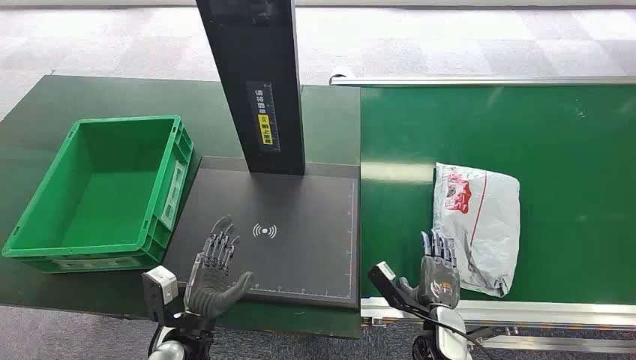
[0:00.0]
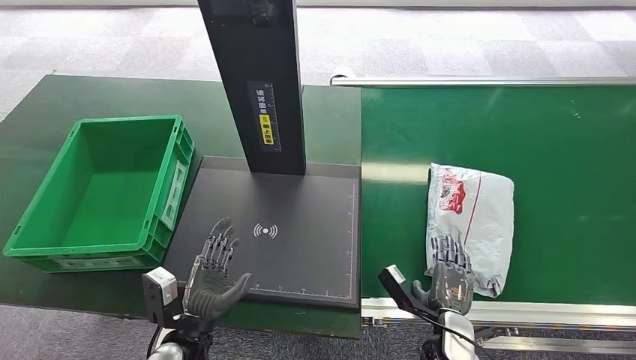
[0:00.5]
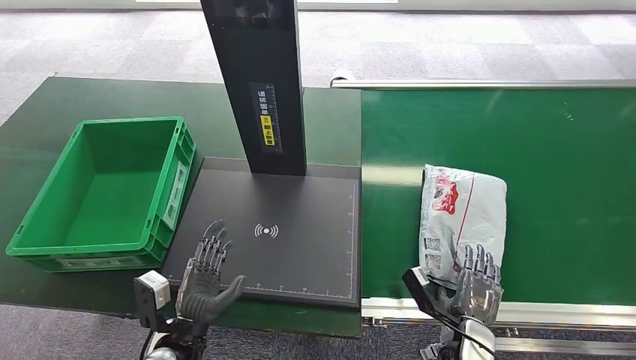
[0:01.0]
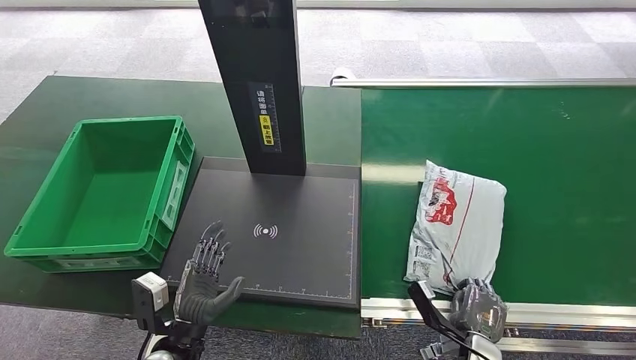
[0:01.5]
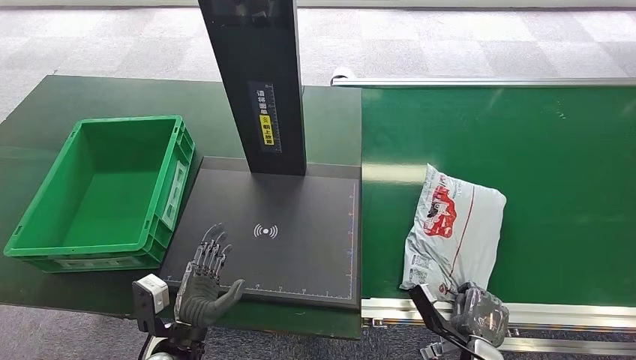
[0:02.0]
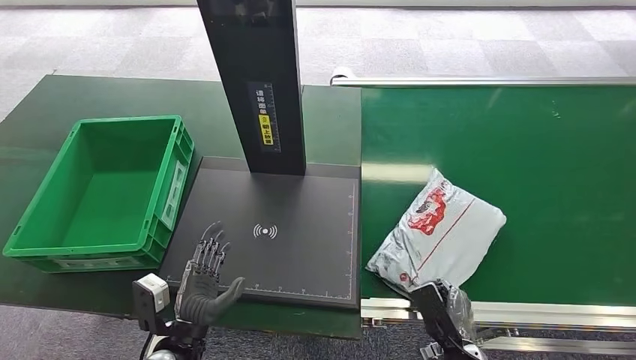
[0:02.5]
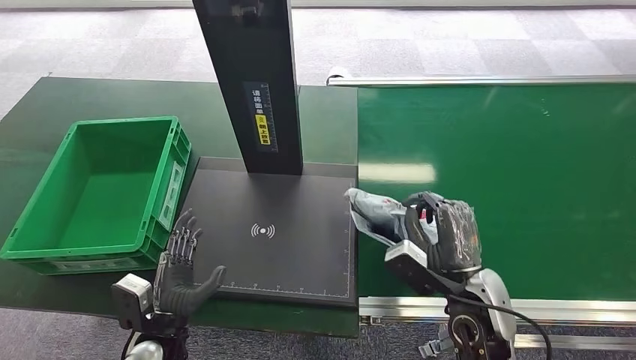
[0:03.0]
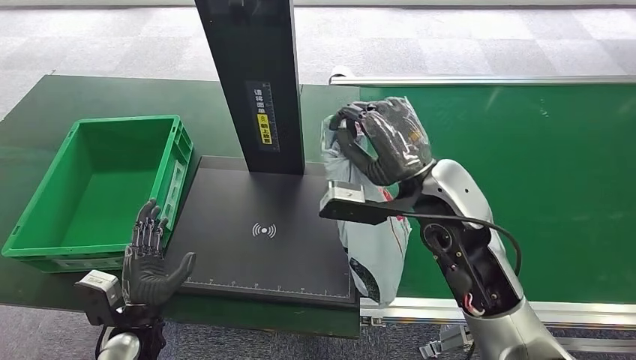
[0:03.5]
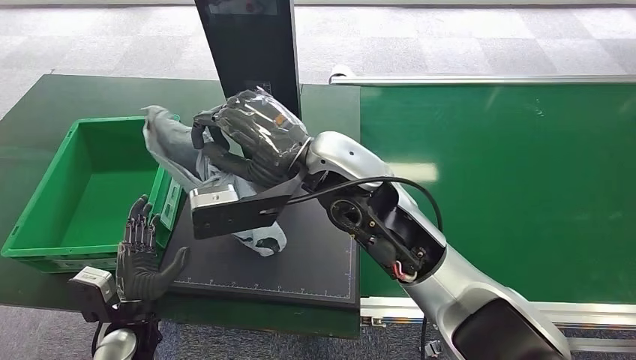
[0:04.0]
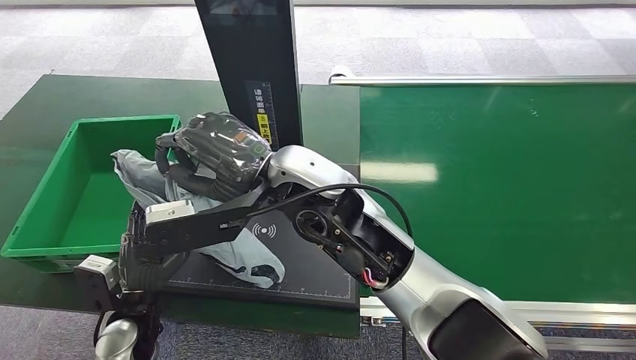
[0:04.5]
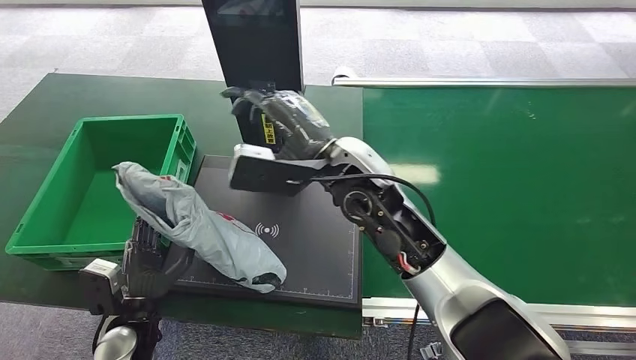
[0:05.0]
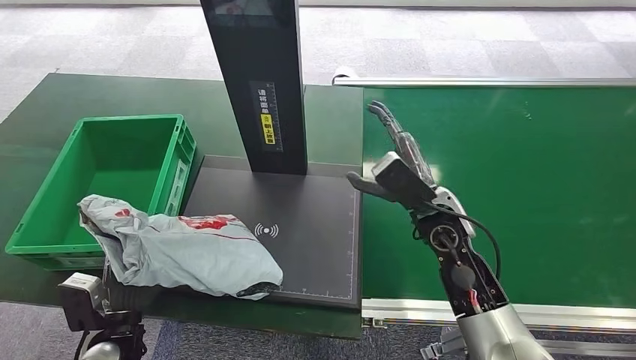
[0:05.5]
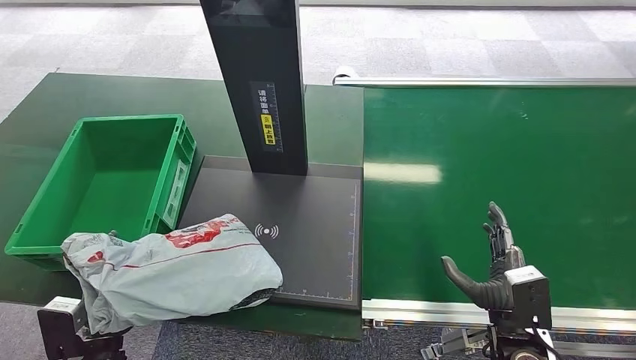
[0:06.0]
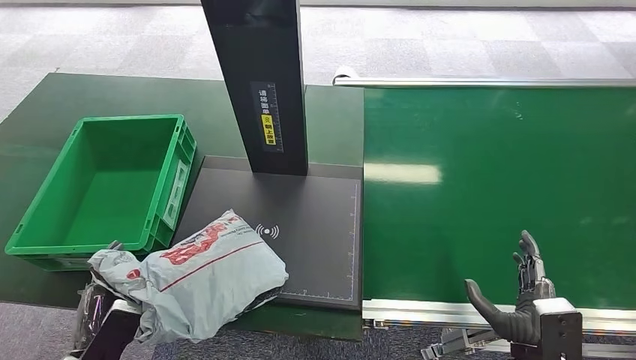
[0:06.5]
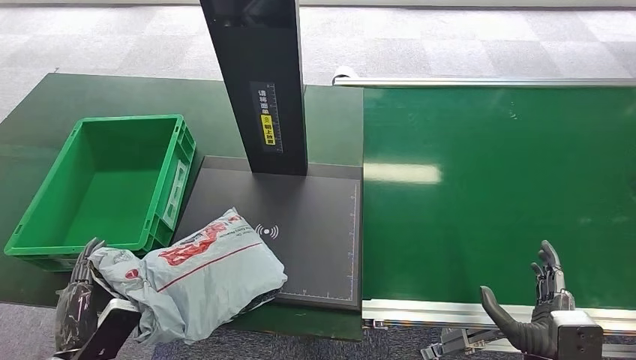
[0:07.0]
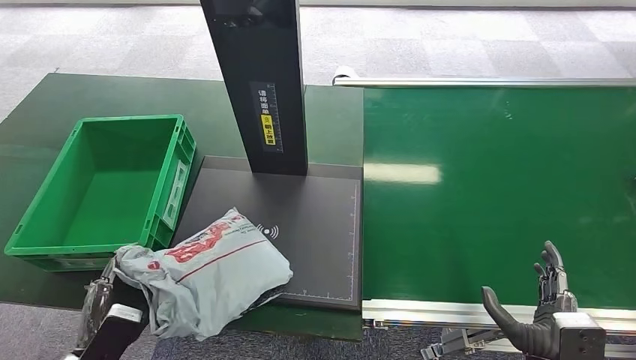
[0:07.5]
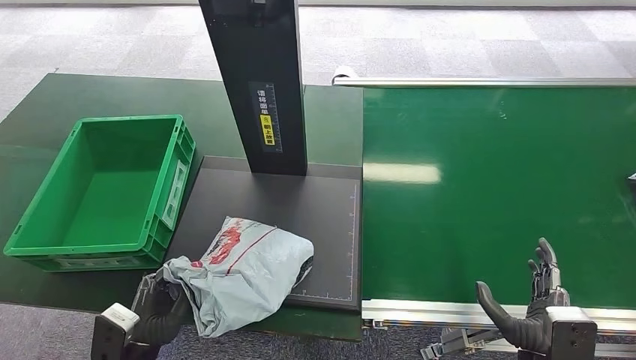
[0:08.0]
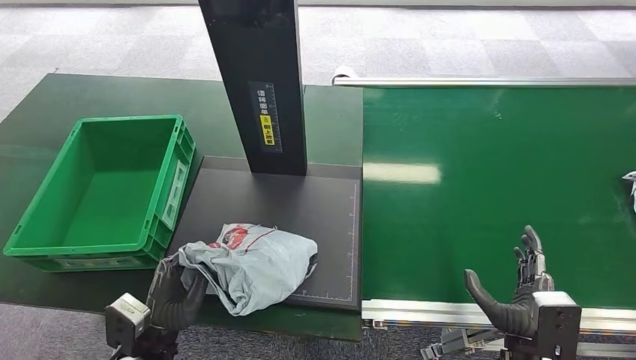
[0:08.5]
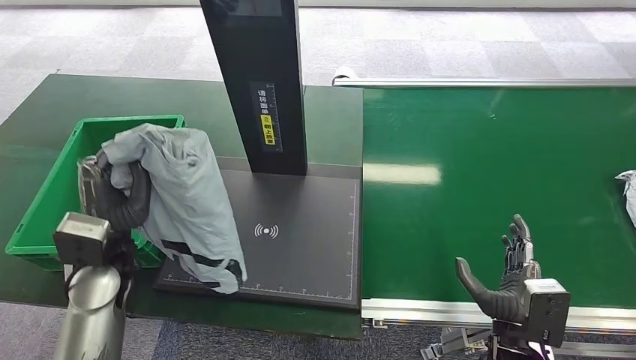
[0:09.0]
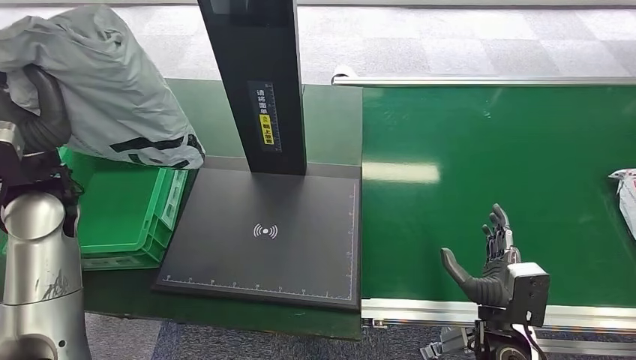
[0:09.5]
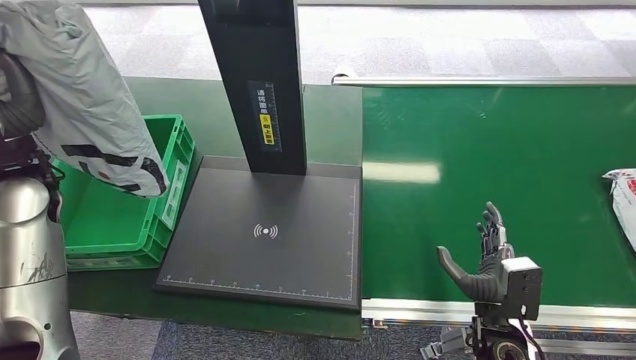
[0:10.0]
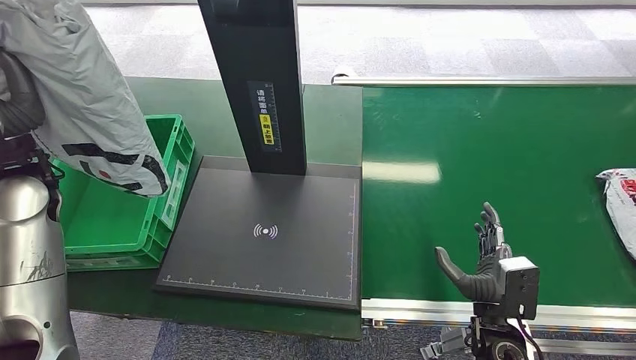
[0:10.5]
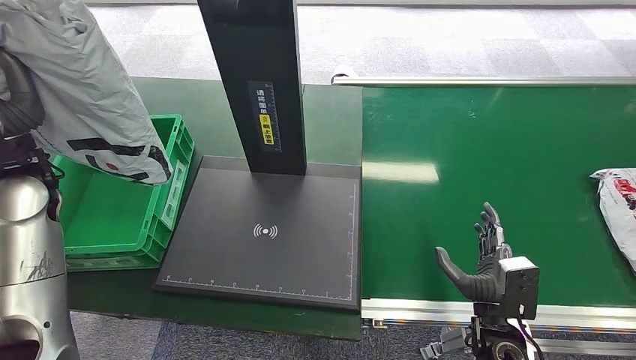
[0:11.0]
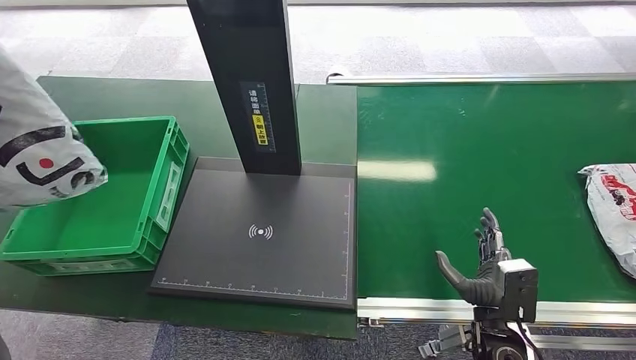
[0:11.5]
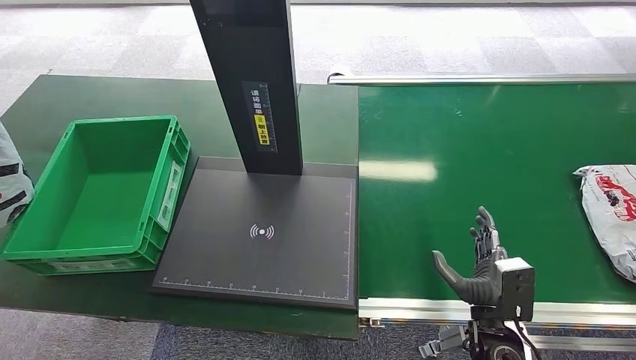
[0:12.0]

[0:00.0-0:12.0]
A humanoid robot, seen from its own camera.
Step, 0:00.0 to 0:03.5: Pick up the package from the conveyor belt.
Step, 0:04.0 to 0:06.0: Place the package onto the inbound machine.
Step, 0:06.5 to 0:09.5: Pick up the package from the inbound machine.
0:06.0 to 0:08.0: The right hand heads backward, covering about 5 cm. Meanwhile the left hand travels to the right by some 5 cm.

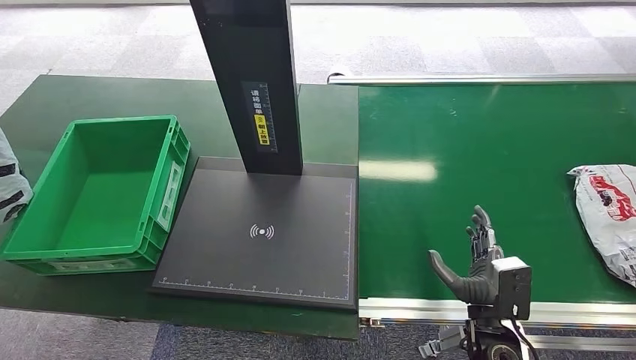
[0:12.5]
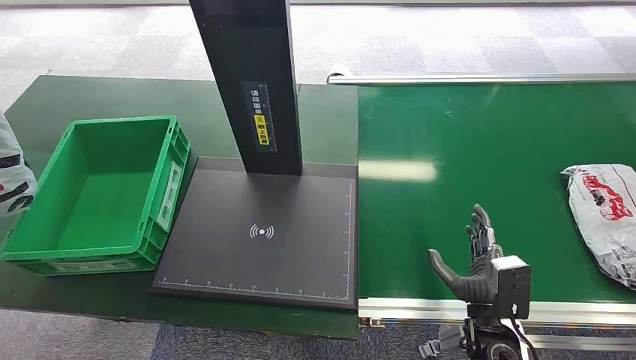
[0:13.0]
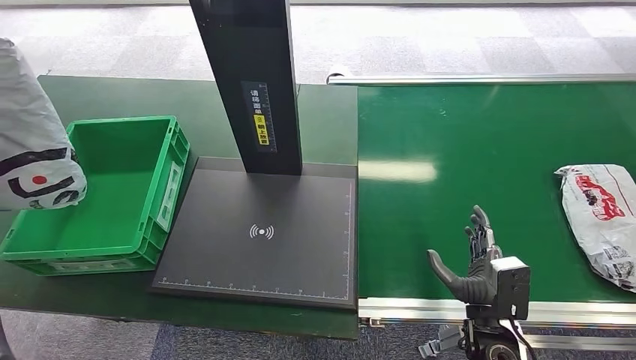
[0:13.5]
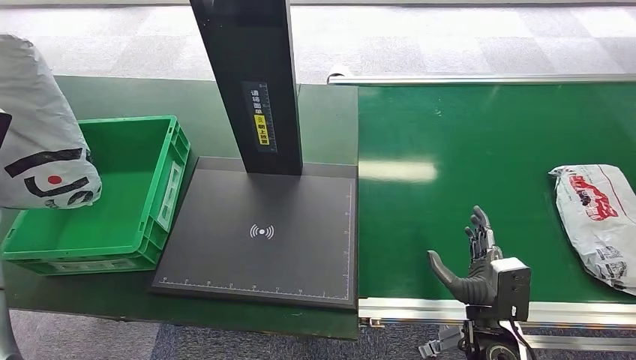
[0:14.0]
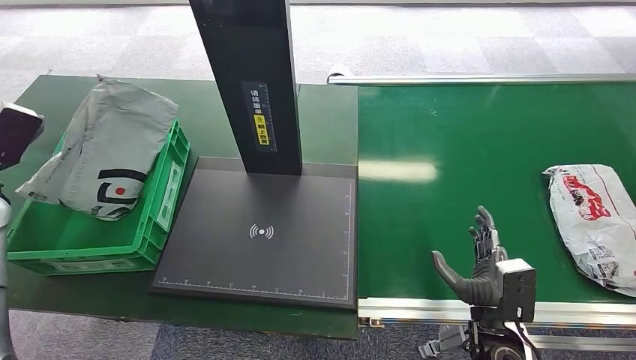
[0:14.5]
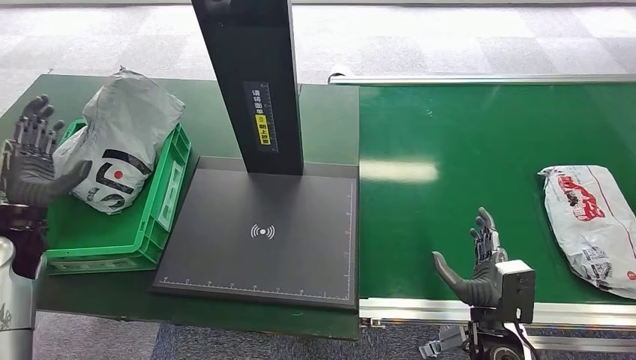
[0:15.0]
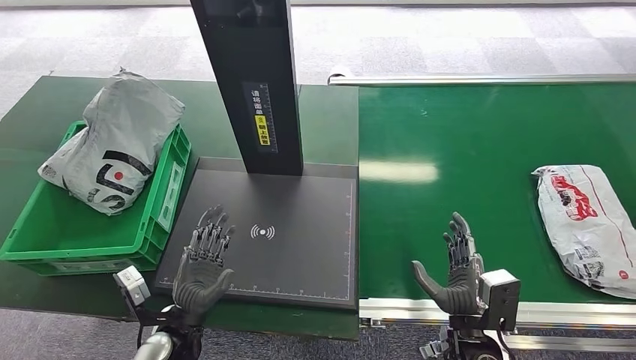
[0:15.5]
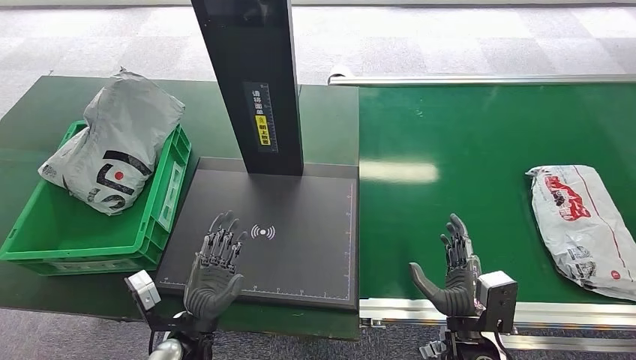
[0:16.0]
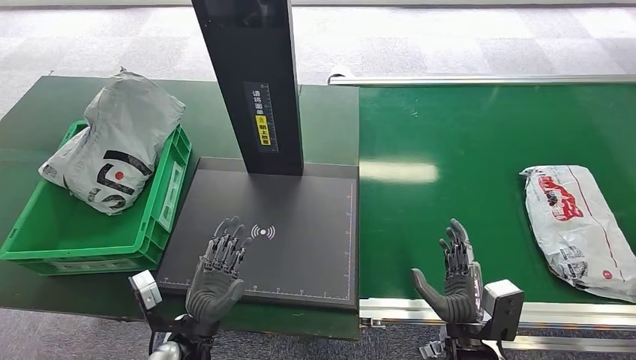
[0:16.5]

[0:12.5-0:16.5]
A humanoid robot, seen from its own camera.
Step, 0:12.5 to 0:16.5: Place the package into the parcel locker.
0:12.5 to 0:14.5: The left hand goes roughly 10 cm to the right.
0:14.5 to 0:16.5: The left hand heads to the right, downward and backward, covering approximately 40 cm.
